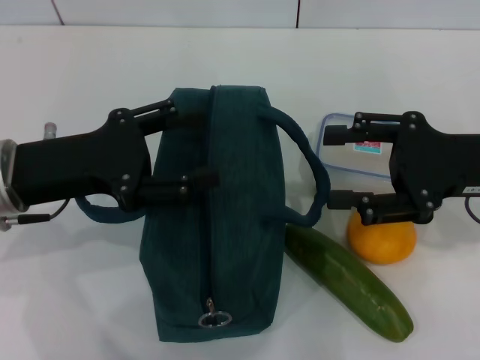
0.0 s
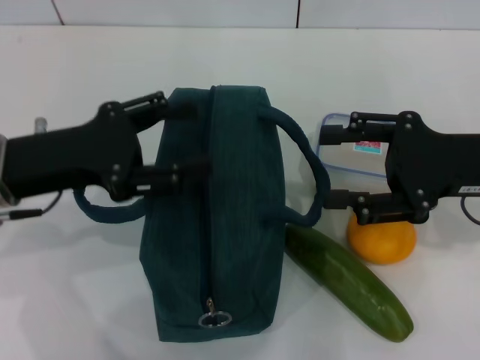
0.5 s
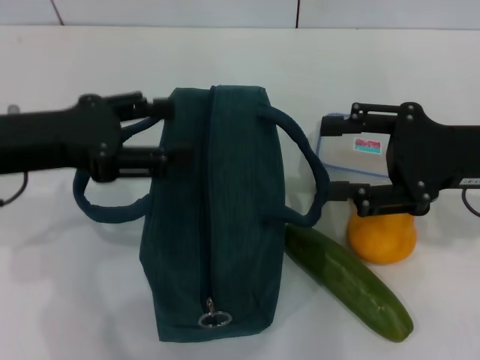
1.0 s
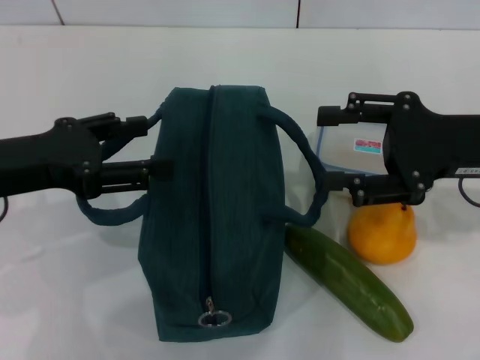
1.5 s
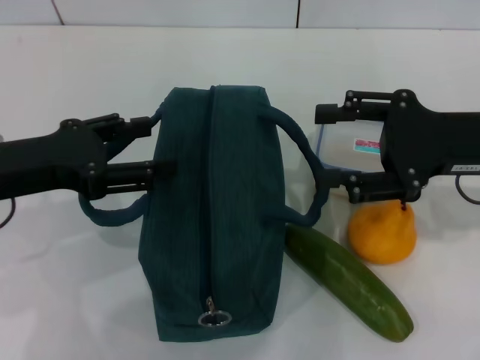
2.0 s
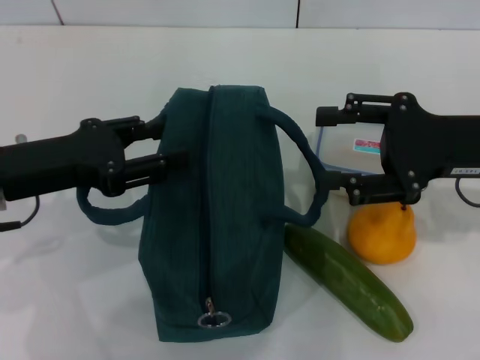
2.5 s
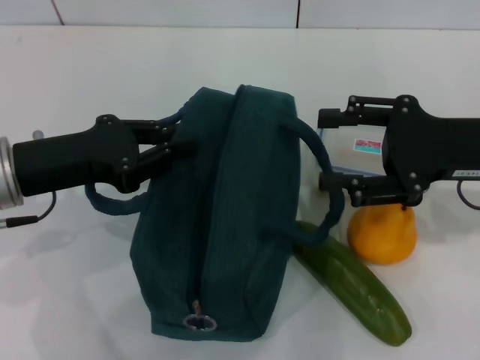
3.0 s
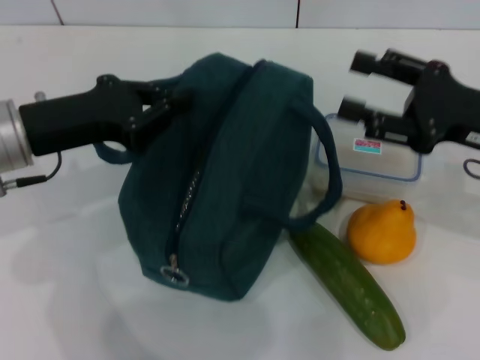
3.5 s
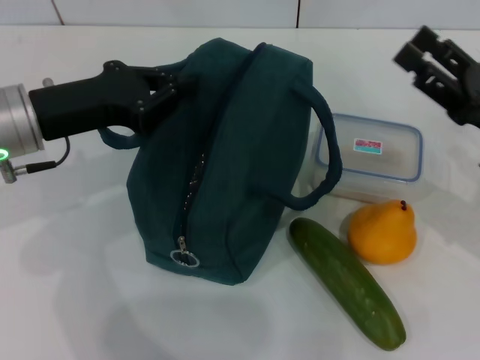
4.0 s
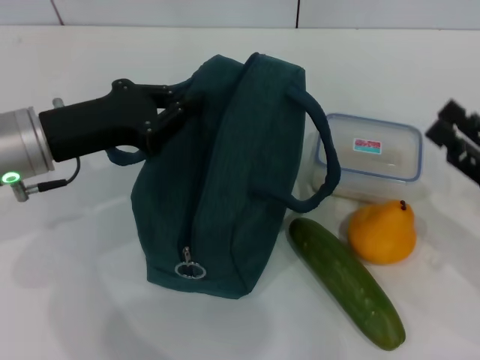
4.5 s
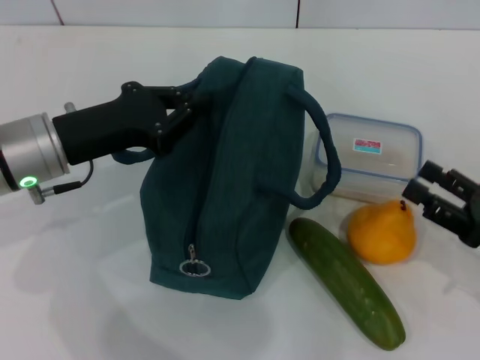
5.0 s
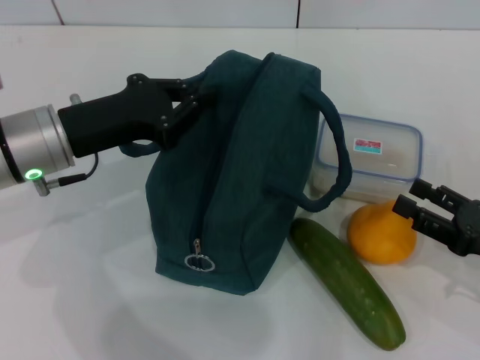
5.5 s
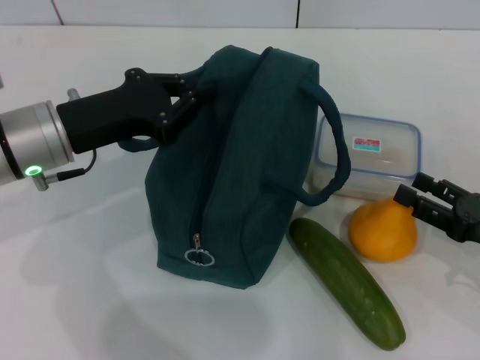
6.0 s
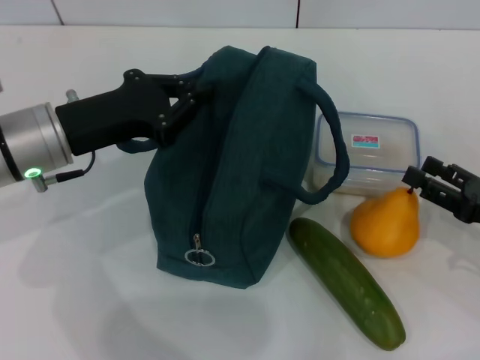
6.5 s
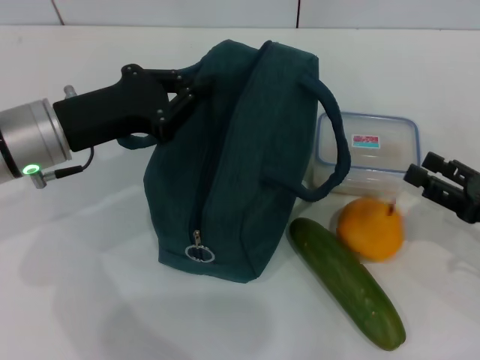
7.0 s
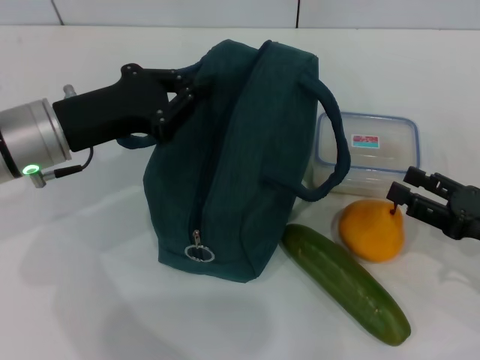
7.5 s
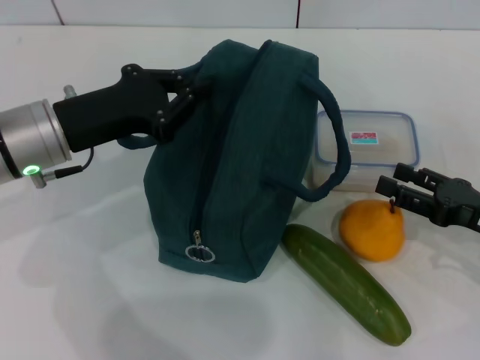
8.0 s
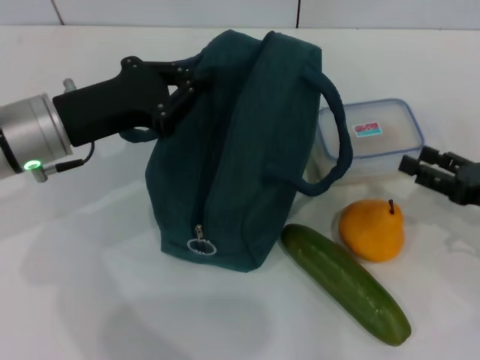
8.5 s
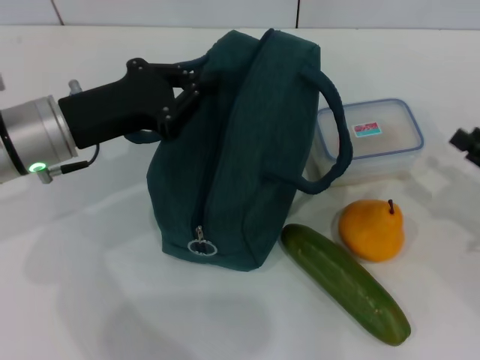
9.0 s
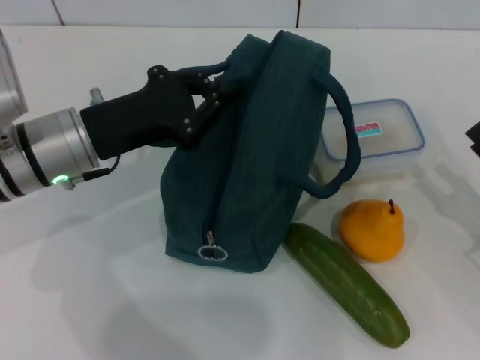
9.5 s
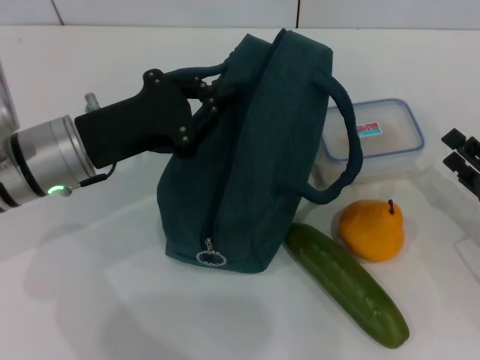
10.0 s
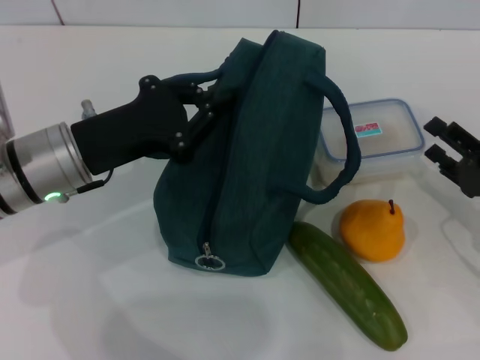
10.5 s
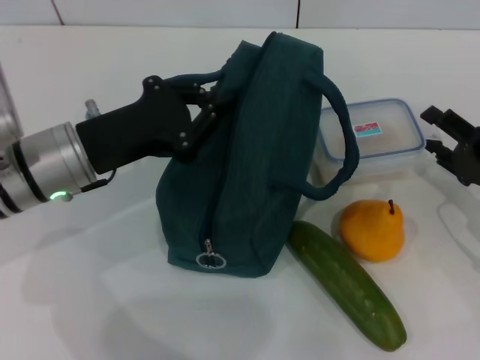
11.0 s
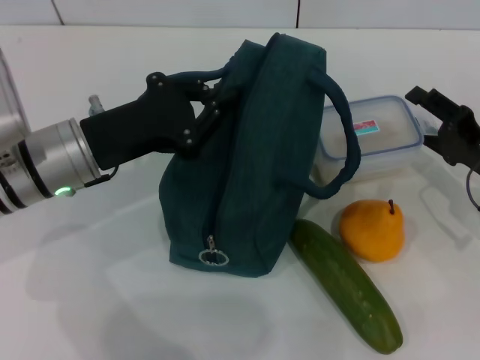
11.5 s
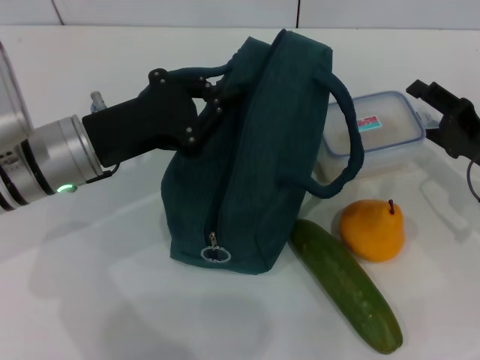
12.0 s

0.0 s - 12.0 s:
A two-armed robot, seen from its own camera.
Step, 0.0 s - 3.0 s: Hold the lunch bag with your left hand.
2.0 s - 4.0 s: The right gripper shifts roughly 5 cm downward. Meanwhile the left gripper shifts about 5 cm forward, and closes up.
4.0 s - 6.0 s: The right gripper travels downward and backward by about 10 cm.
6.0 s - 8.0 s: The grippers move only a little.
10.0 s - 12.0 s: The right gripper heads forward, covering about 10 cm.

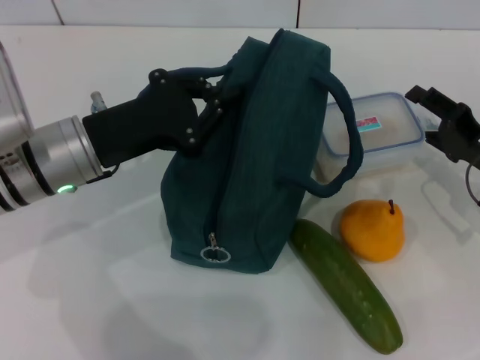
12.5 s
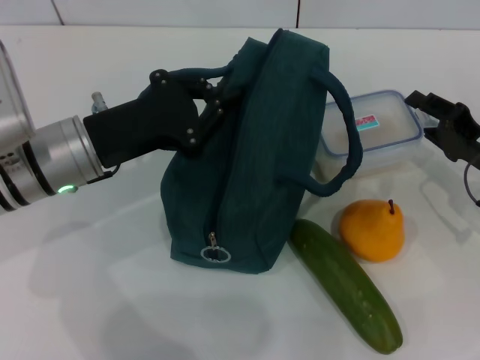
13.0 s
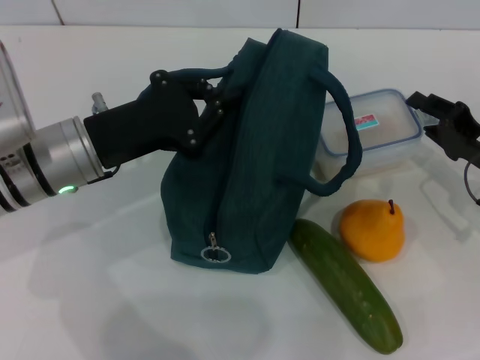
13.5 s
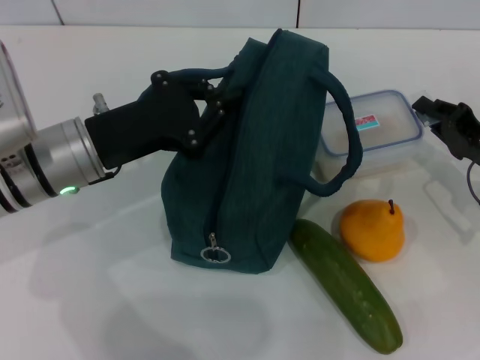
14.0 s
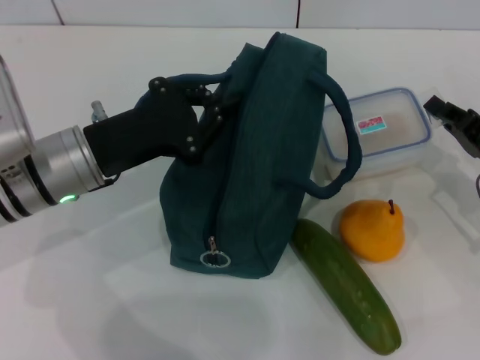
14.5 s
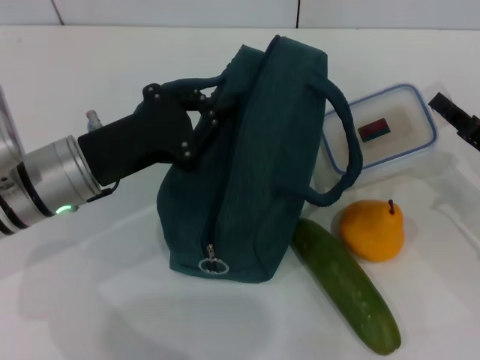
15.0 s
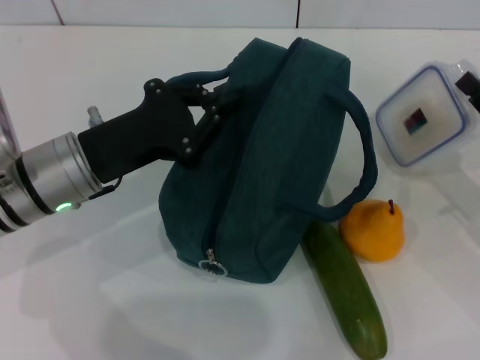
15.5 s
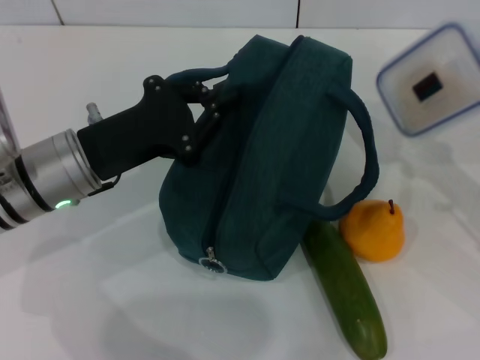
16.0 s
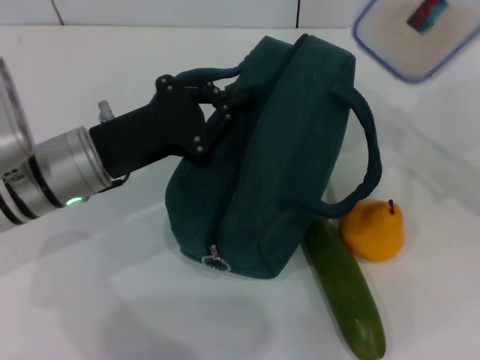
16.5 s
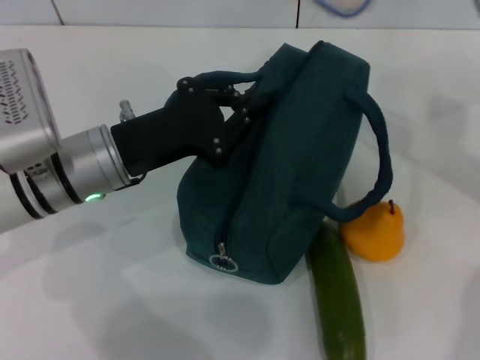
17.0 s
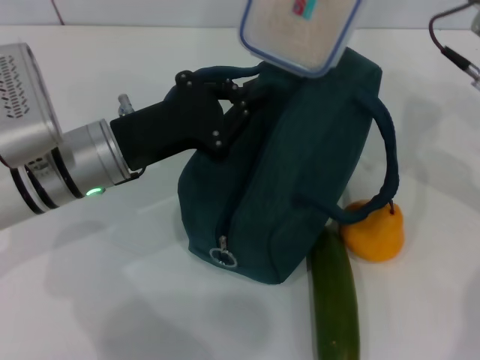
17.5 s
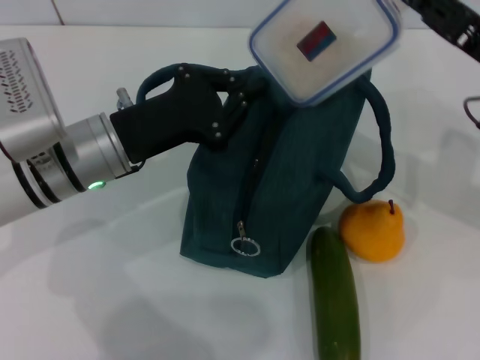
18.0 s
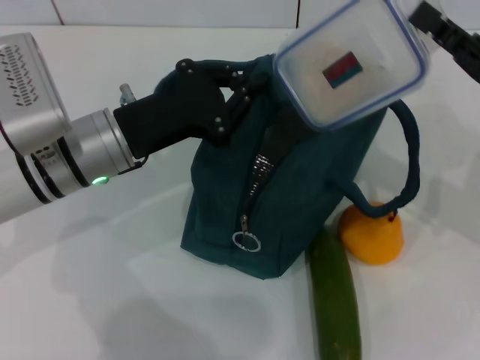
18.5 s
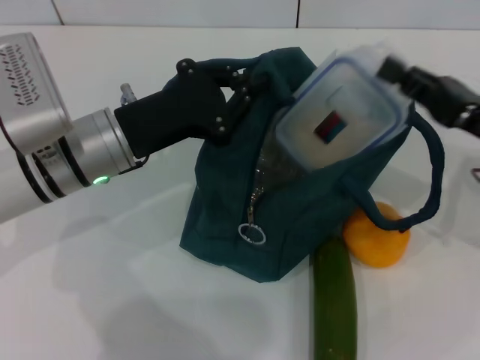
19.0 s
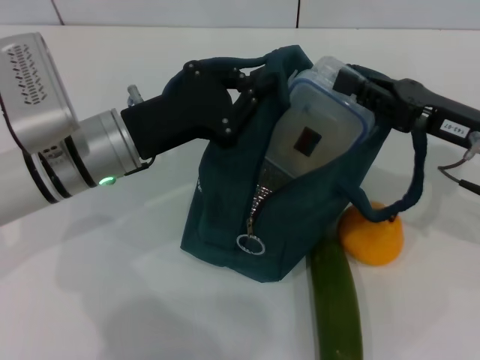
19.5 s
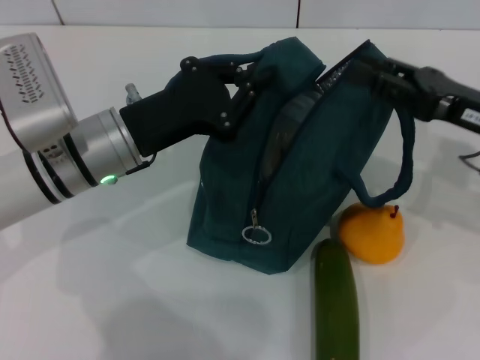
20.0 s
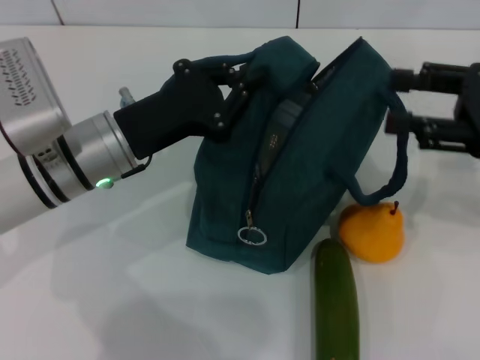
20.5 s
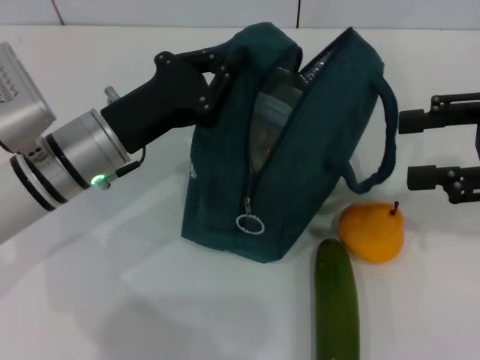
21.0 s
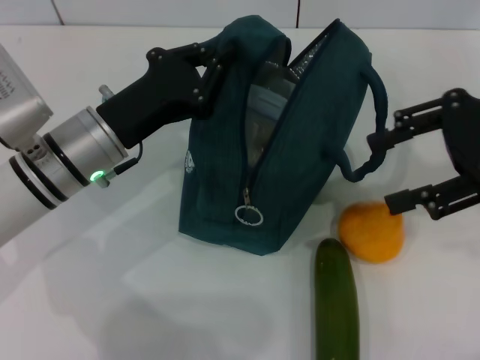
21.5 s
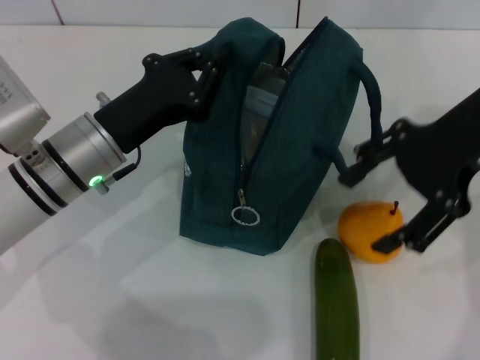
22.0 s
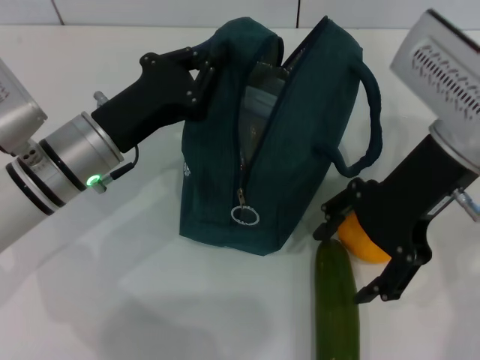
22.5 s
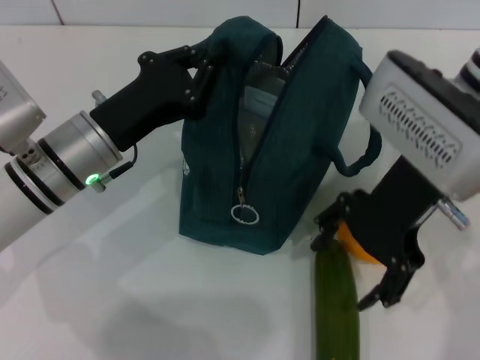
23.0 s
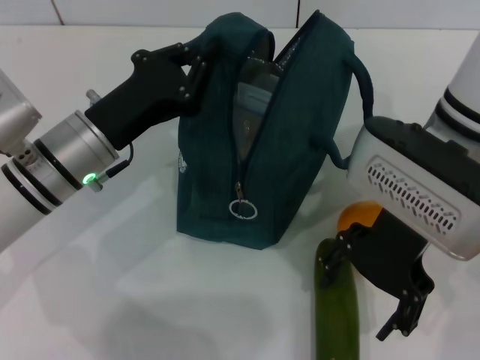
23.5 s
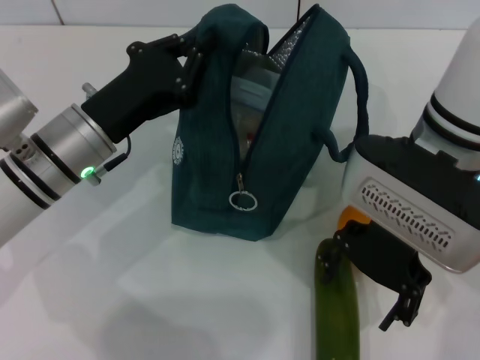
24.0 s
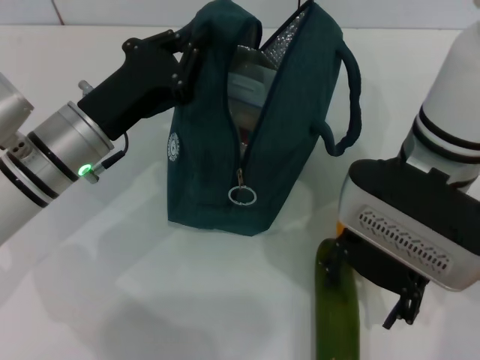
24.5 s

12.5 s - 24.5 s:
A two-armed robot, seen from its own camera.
Step, 14.5 s - 20.0 s: Place the lunch box into the lunch bag with your right hand.
12.5 s - 14.5 s: The right gripper closes its fingers.
14.5 s - 16.5 s: The right gripper heads upward, covering about 10 cm.
16.5 s - 18.5 s: The right gripper goes upward and returns, approximately 5 cm each way.
18.5 s - 20.5 s: The right gripper shifts approximately 5 cm upward, and opens.
20.5 s - 22.5 s: The right gripper heads to the left, covering roughly 15 cm.
22.5 s - 24.5 s: The right gripper changes place by some 5 cm.

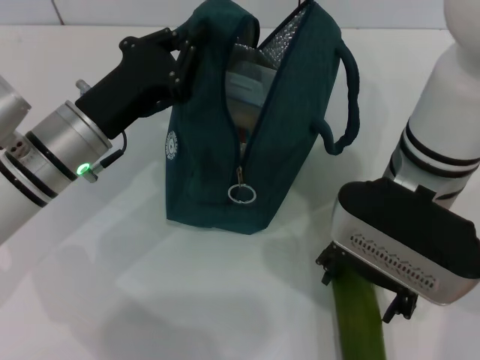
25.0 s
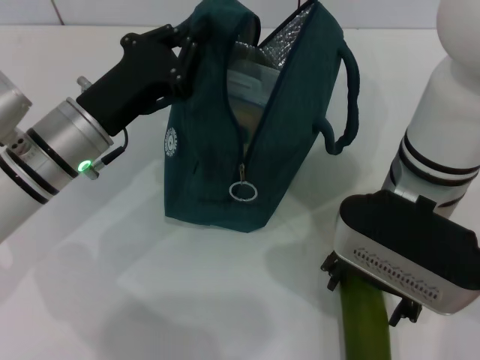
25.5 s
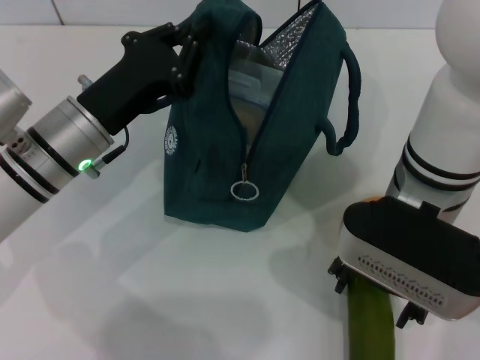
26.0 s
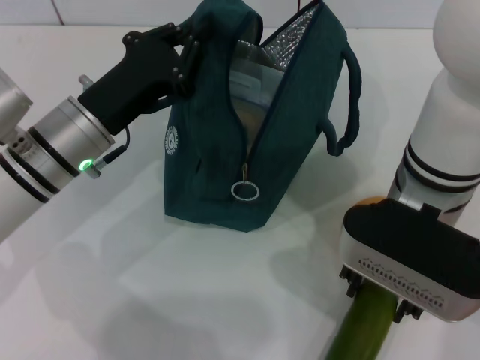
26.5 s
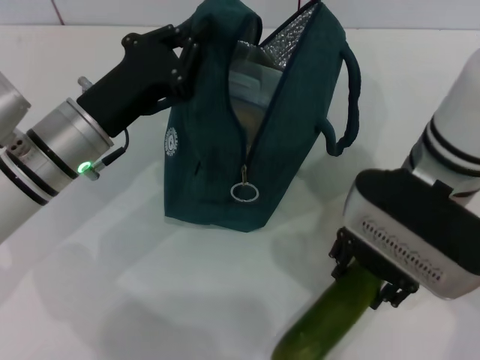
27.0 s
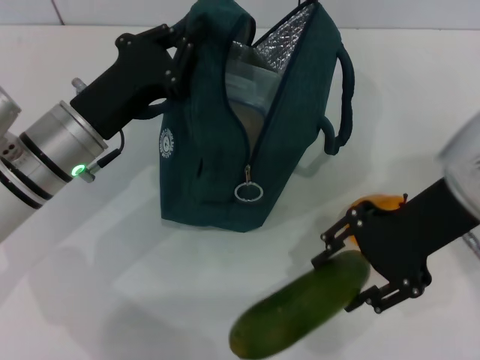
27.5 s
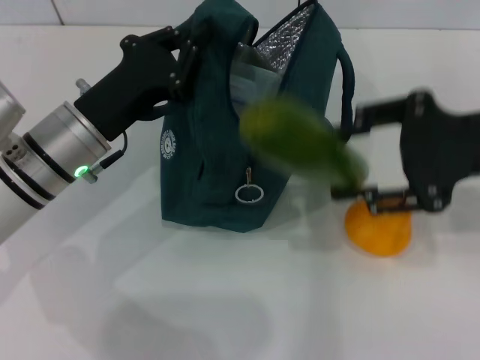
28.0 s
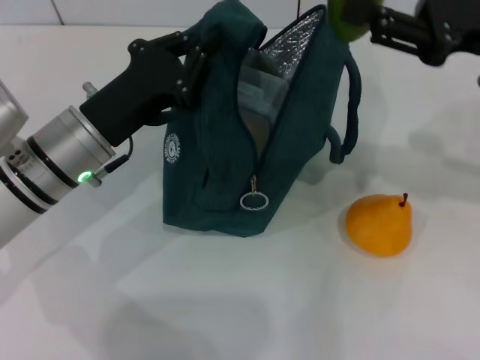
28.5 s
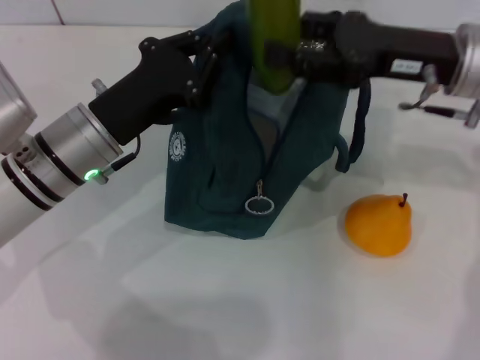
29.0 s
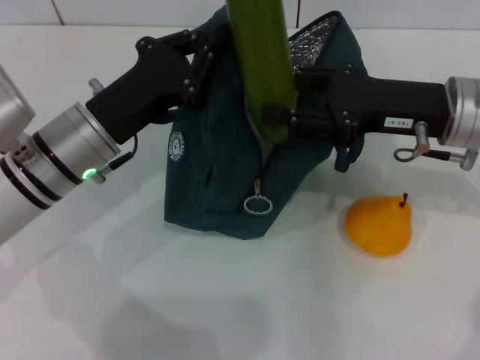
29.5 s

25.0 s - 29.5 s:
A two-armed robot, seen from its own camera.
25.0 s - 27.0 s: The right gripper closes.
27.0 s - 29.5 s: The right gripper goes approximately 10 cm to the right.
